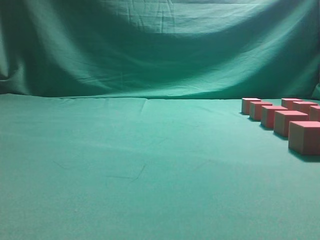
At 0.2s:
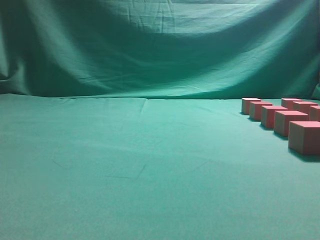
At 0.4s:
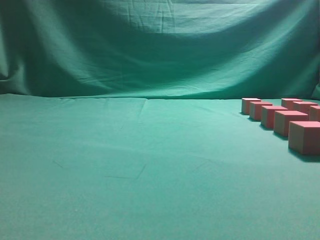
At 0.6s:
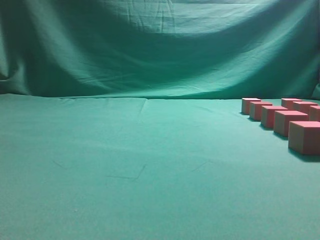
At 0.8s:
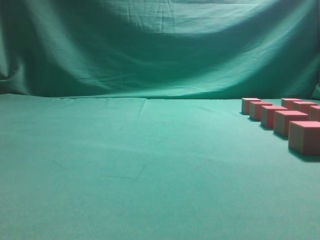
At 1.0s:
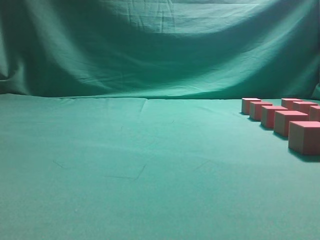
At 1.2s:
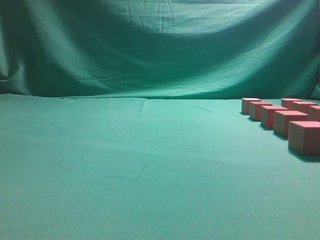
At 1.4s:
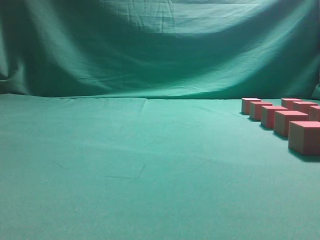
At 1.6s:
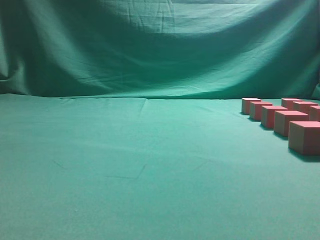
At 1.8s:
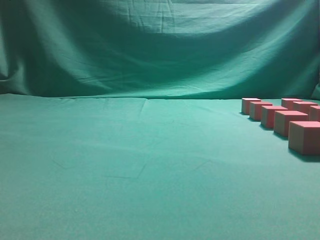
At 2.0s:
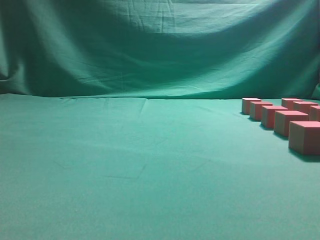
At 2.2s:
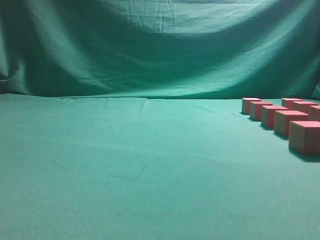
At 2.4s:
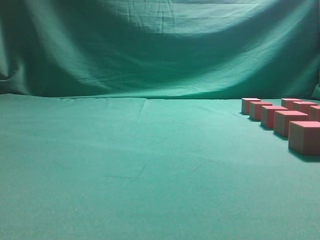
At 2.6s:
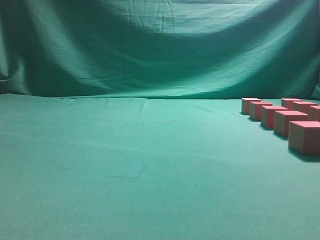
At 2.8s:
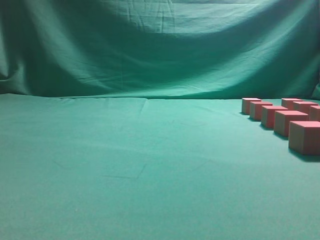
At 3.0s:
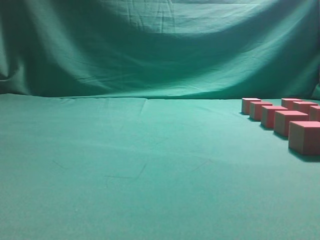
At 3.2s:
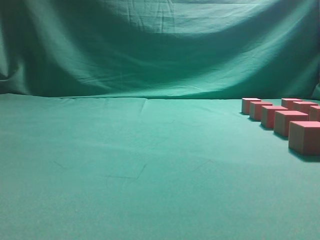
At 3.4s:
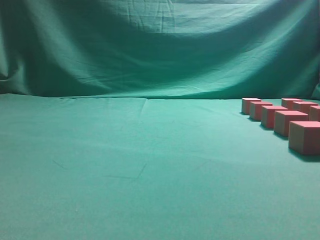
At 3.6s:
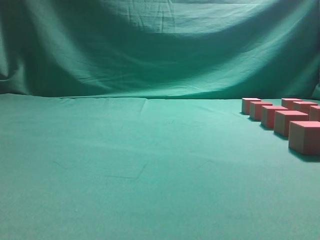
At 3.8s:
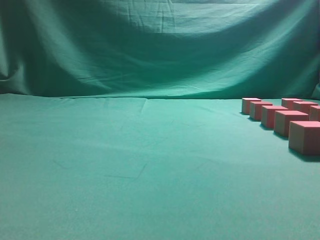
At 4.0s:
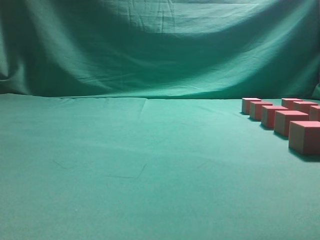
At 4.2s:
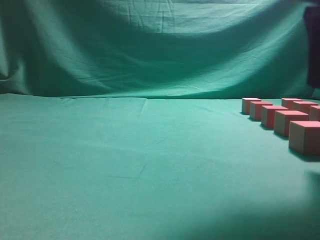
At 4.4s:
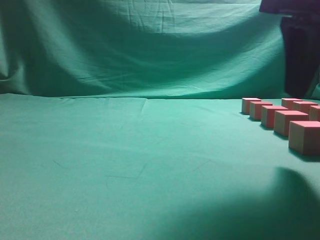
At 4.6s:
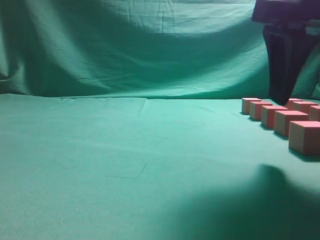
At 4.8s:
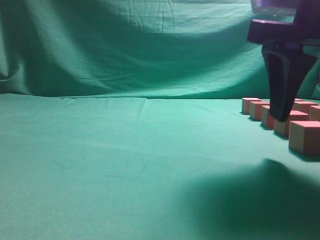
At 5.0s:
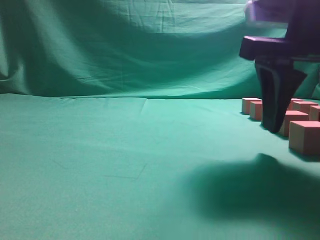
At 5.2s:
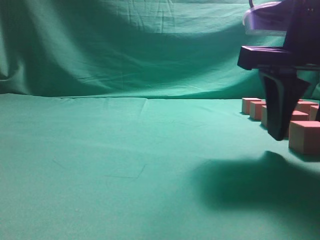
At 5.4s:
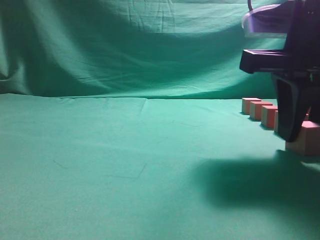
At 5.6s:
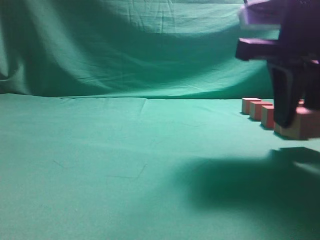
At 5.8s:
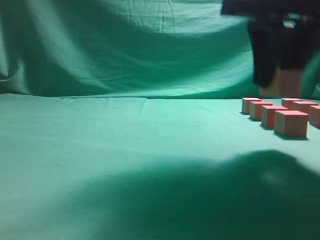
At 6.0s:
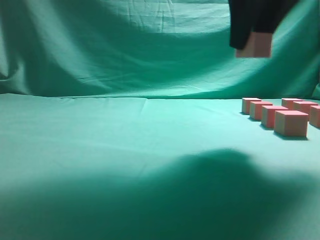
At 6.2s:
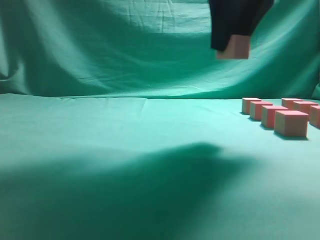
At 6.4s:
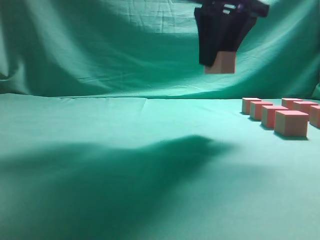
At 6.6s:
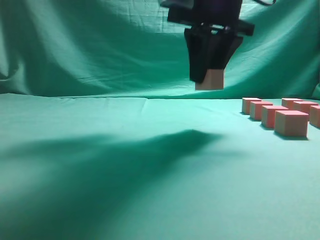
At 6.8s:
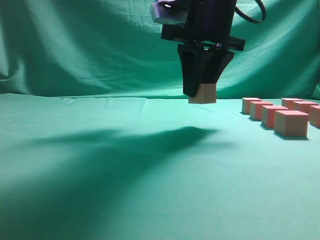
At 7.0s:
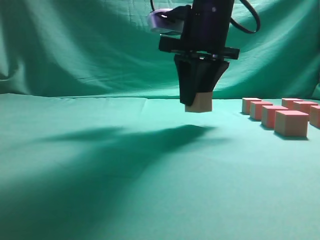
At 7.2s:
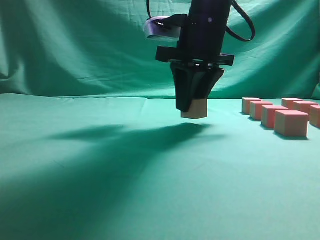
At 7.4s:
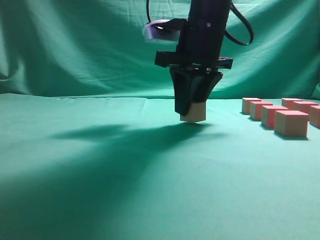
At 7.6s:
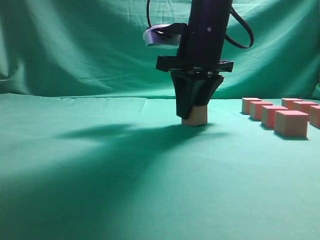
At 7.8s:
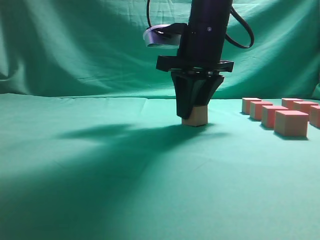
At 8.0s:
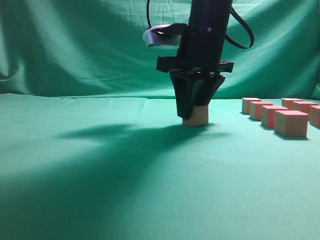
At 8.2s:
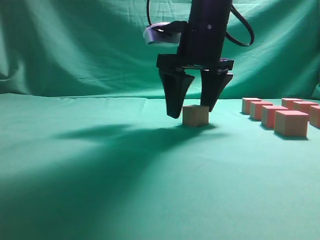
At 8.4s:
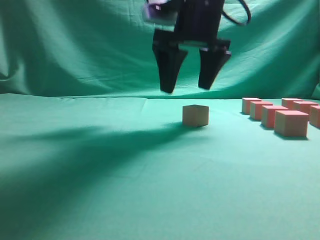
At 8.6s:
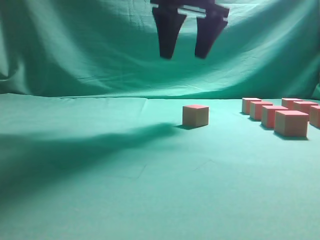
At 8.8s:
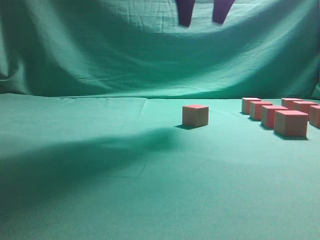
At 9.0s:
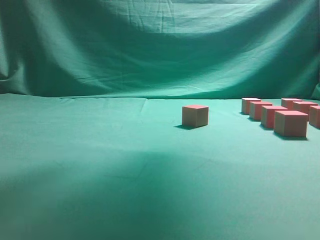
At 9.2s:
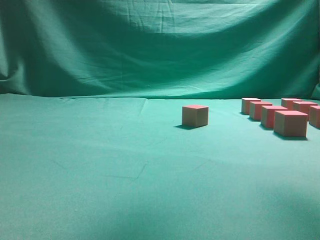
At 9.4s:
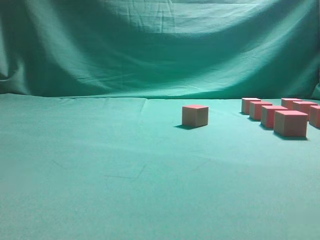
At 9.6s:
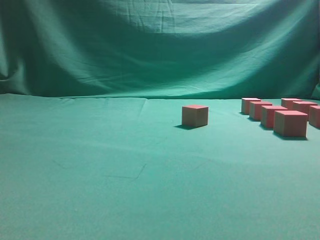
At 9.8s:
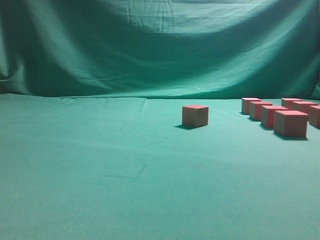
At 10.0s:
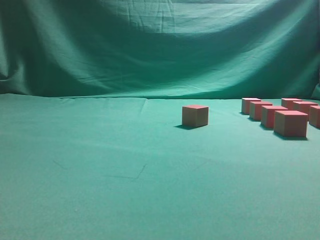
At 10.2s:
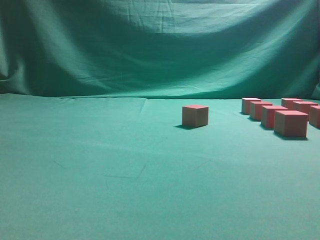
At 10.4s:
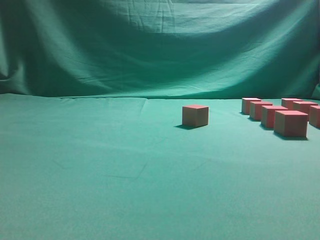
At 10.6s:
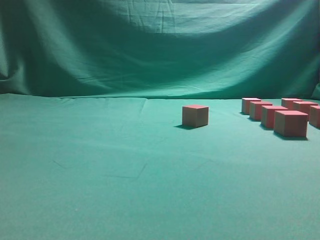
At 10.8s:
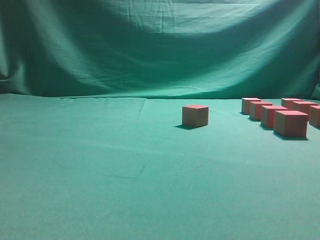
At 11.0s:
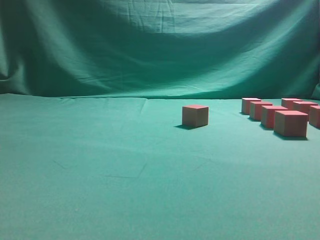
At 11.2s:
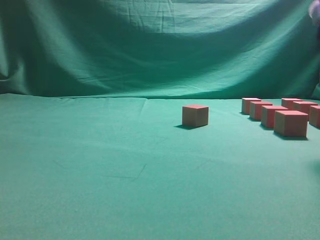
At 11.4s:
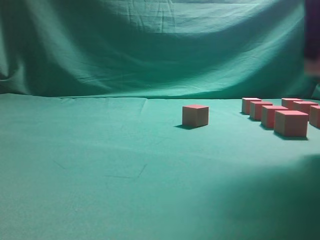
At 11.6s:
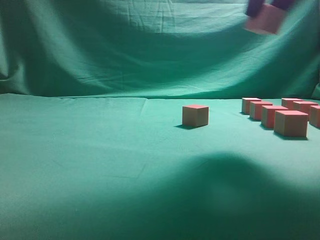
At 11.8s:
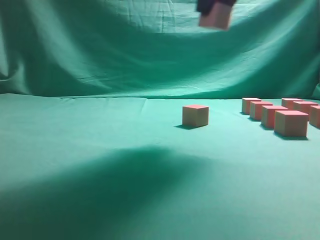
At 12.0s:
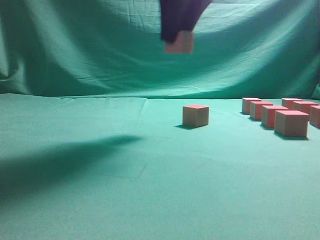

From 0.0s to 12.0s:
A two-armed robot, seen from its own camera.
Task of the whole recording: pick up the multiple cubes in two columns one by one and place them in another position on the table.
Step, from 0.0s to 6.0s: Pick up the block on the table.
Step, from 6.2s to 8.6s: Place the block at the correct position to assemble the letter S.
Step, from 8.8s to 11.6s: Pick up the block on the table.
From 3.0s to 4.4s: The right gripper shifts about 15 cm forward, to the left and downward, and opens.
From 4.4s to 6.0s: The right gripper travels forward and upward by about 10 cm.
From 6.0s to 7.6s: The right gripper heads forward, downward and to the left, covering roughly 15 cm.
From 7.6s to 9.0s: The right gripper goes about 20 cm upward, and opens up.
From 9.0s to 10.4s: The right gripper shifts some 25 cm downward, to the right and backward.
From 10.4s to 12.0s: The right gripper is displaced to the left, upward and forward by some 25 cm, and closes.

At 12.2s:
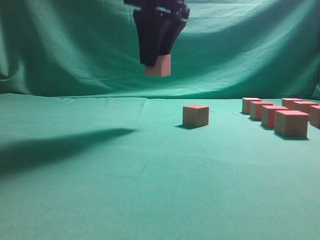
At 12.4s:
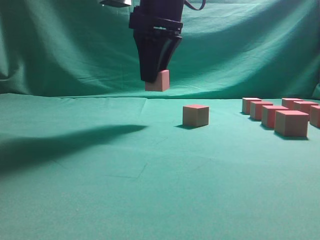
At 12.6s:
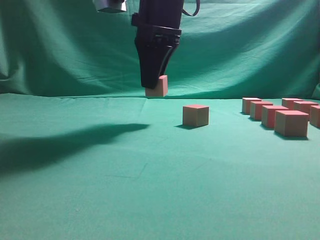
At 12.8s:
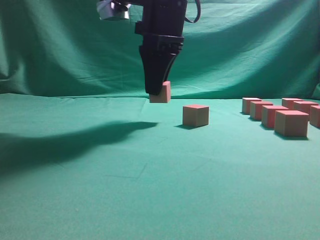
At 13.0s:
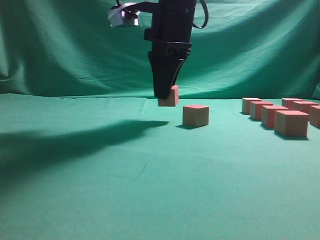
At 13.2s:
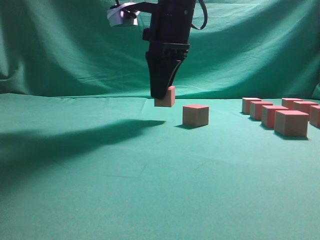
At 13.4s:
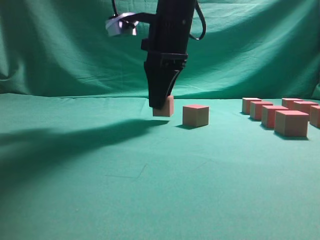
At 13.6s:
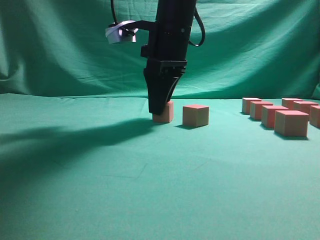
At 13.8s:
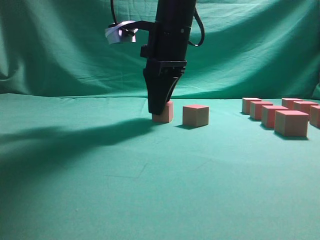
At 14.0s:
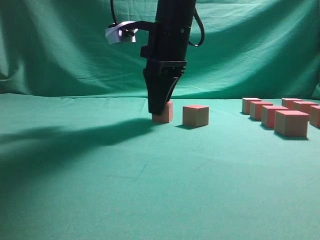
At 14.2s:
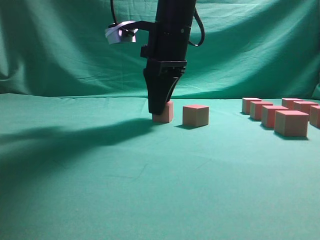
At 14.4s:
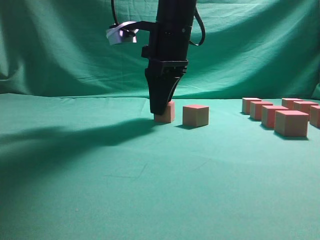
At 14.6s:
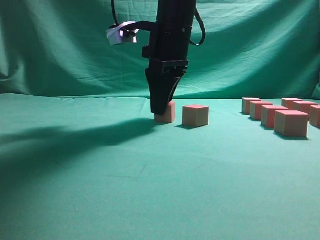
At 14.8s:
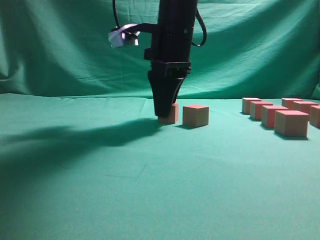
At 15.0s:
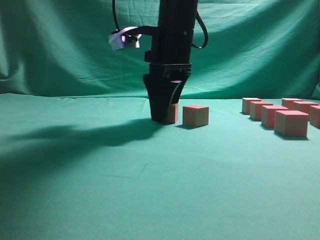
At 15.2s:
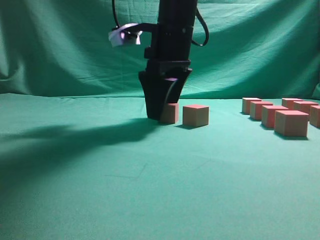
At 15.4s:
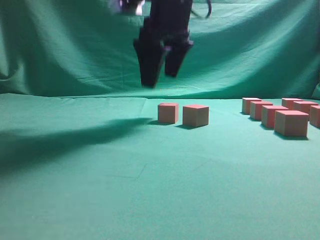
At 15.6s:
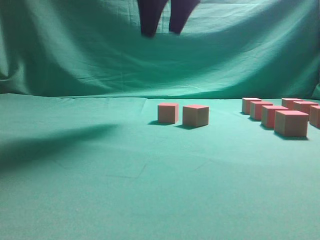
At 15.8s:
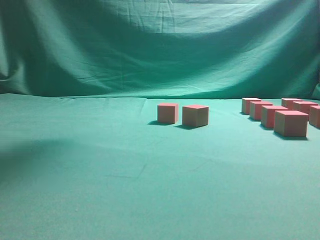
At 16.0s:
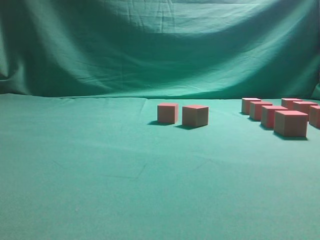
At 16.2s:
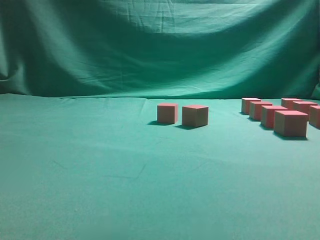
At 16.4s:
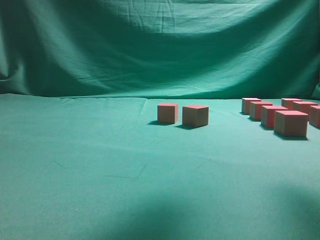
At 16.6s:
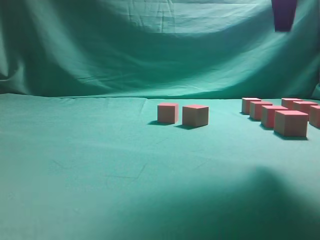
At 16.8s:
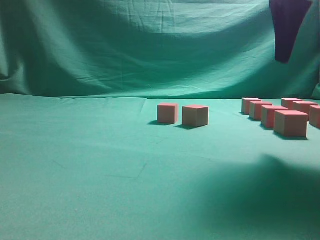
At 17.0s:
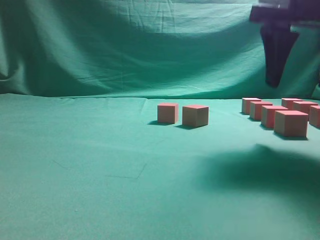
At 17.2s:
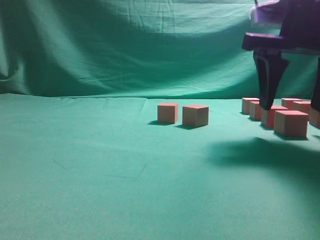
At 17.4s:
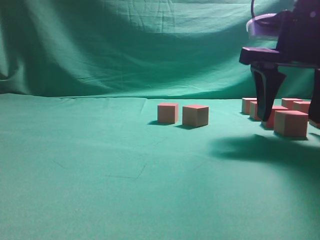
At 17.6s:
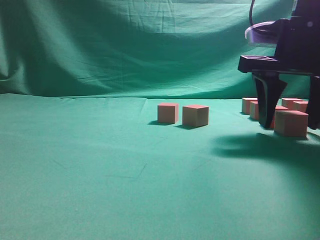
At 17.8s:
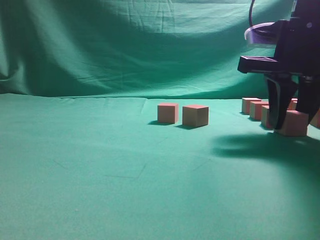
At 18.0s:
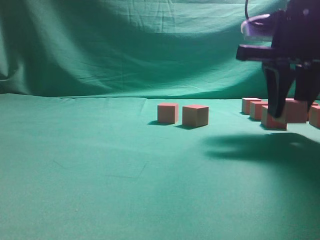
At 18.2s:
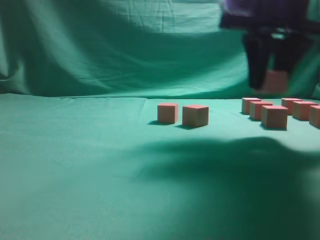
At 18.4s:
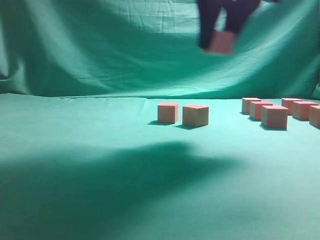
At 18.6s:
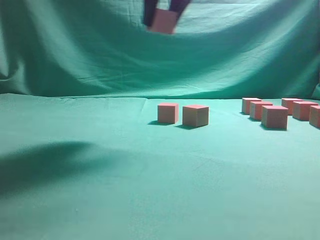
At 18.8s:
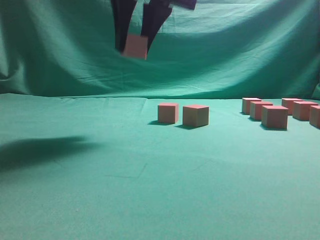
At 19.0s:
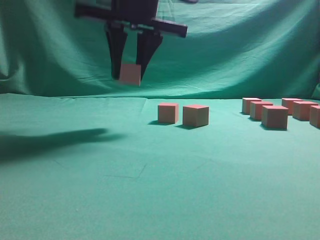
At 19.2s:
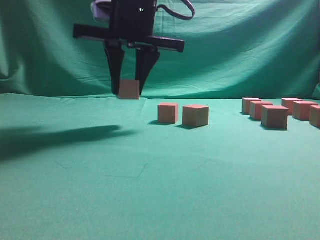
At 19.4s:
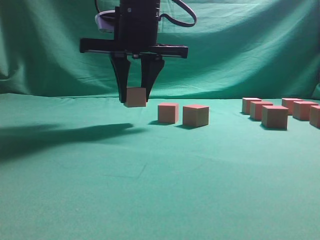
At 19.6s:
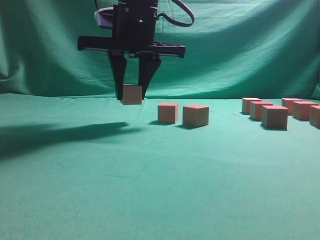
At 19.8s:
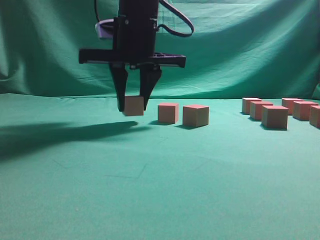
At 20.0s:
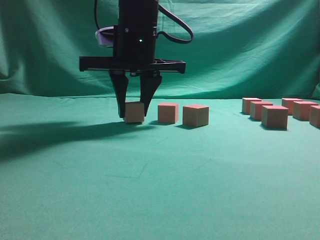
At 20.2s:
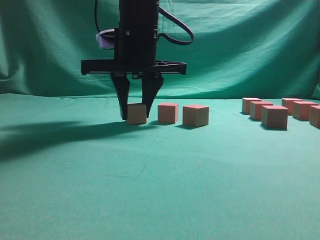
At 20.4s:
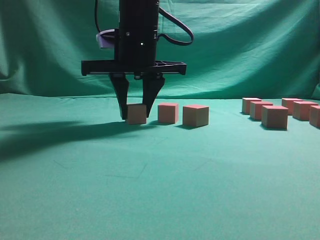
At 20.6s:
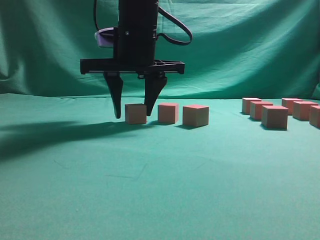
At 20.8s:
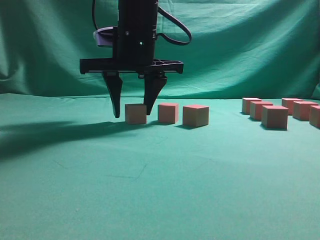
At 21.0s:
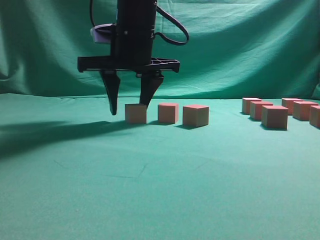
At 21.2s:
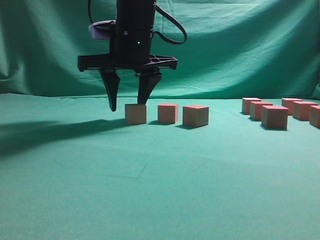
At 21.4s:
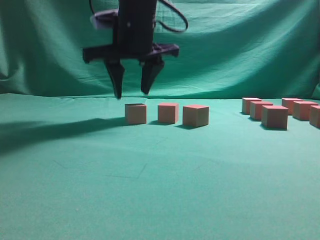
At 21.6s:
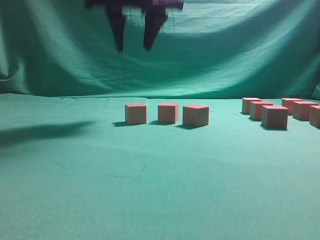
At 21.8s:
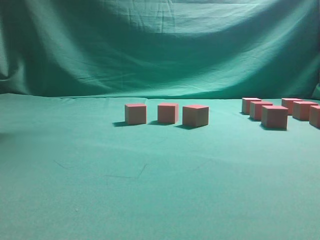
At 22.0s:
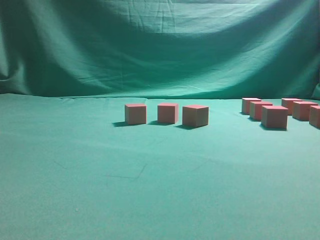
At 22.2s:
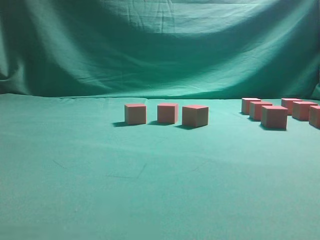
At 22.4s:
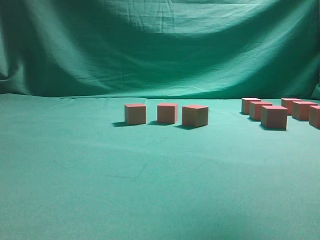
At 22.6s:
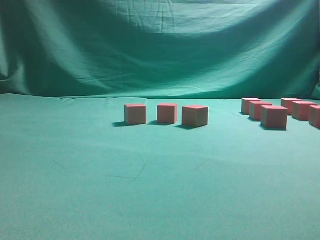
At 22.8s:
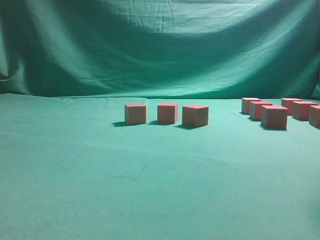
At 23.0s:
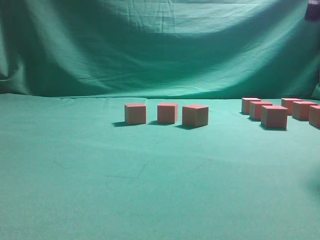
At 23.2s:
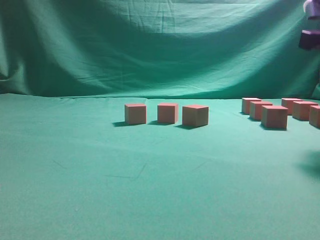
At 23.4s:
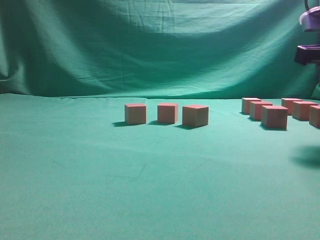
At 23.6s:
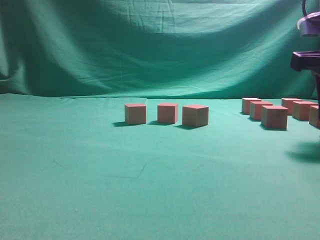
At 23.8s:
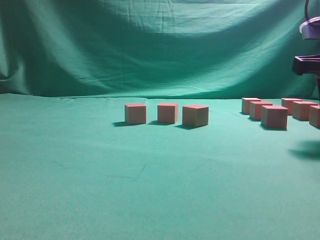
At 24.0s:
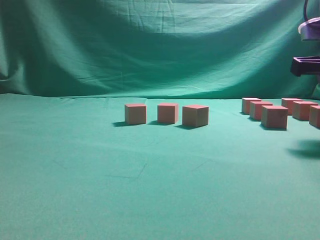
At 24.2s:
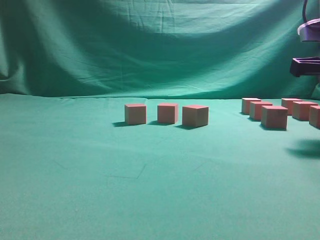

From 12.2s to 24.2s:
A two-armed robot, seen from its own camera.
Task of the whole recording: pick up the multiple cubes in two columns one by one and place them in another position on the table.
Step, from 12.2s to 15.4s: Place the block at the correct position to assemble the letter S.
Step, from 15.8s to 18.4s: Pick up the block on the table.
Step, from 18.6s to 21.6s: Place the block at the correct position to assemble the letter S.
From 12.2s to 13.8s: The right gripper heads downward, covering some 10 cm.
From 13.8s to 15.2s: The right gripper opens.
From 15.2s to 16.6s: The right gripper shifts about 25 cm to the right, backward and upward.
From 16.6s to 18.2s: The right gripper goes about 10 cm downward and forward, and closes.
From 18.2s to 19.8s: The right gripper shifts some 20 cm to the left.
From 19.8s to 21.2s: The grippers make only small movements.
From 21.2s to 22.6s: The right gripper travels to the right and upward by about 30 cm.
From 22.6s to 24.2s: The right gripper is displaced downward by about 20 cm.
